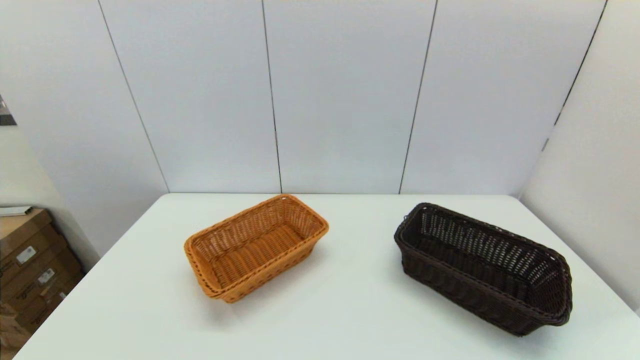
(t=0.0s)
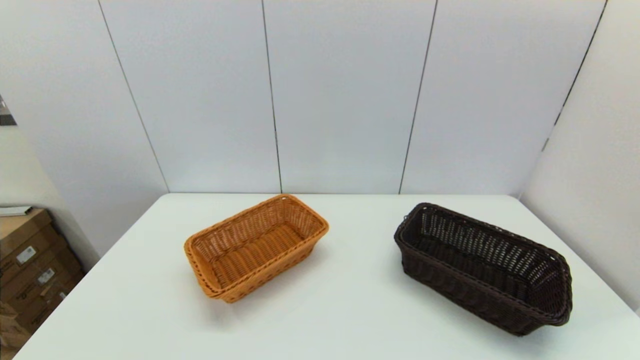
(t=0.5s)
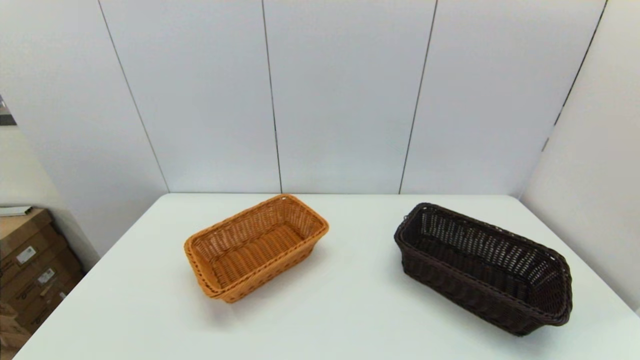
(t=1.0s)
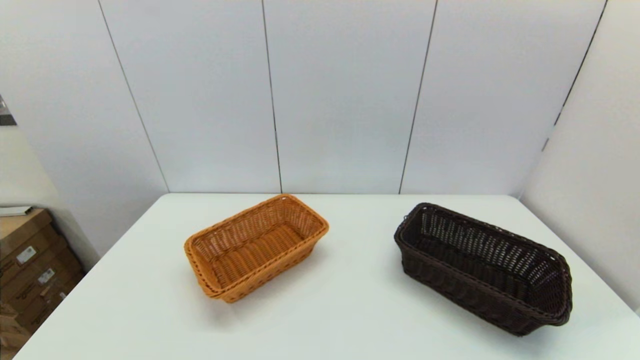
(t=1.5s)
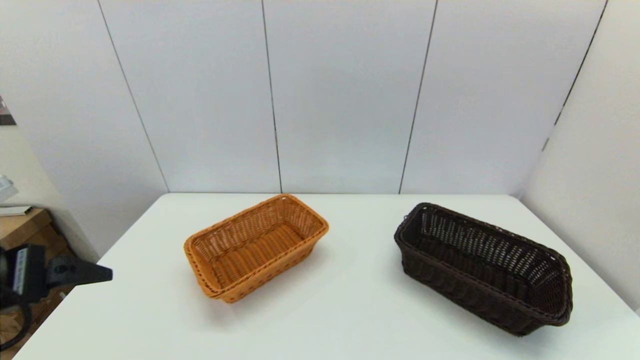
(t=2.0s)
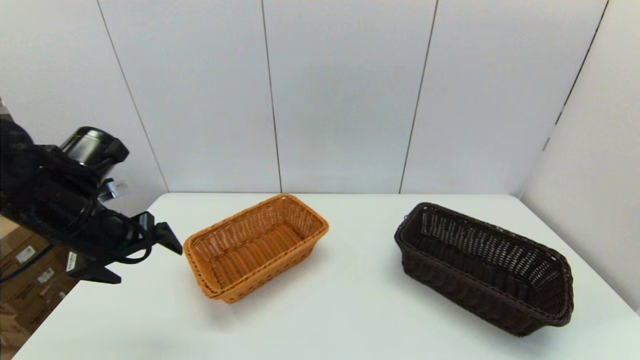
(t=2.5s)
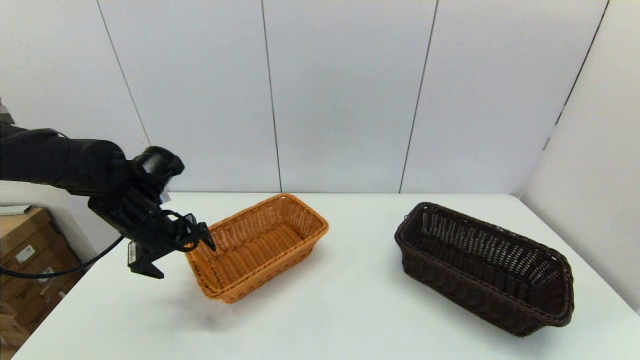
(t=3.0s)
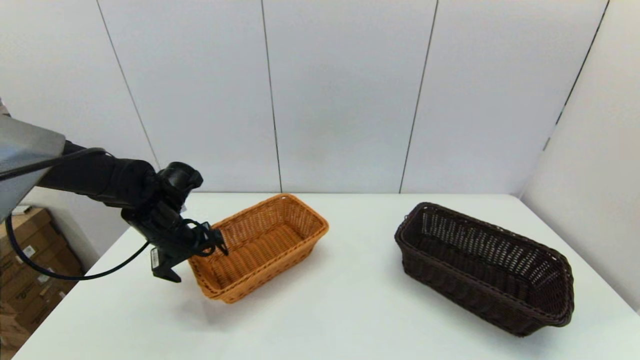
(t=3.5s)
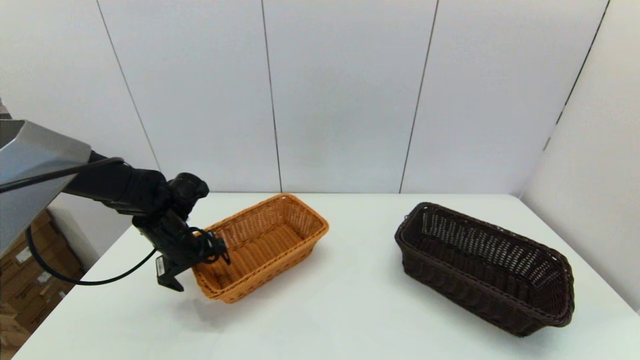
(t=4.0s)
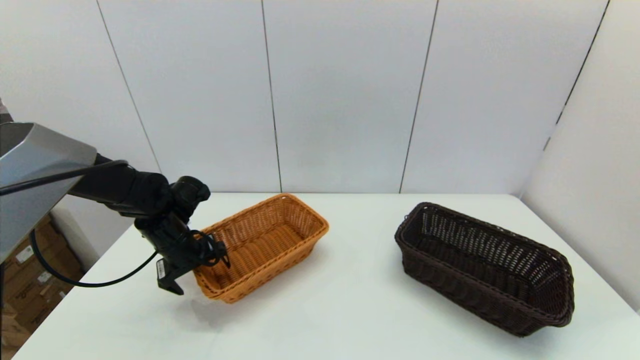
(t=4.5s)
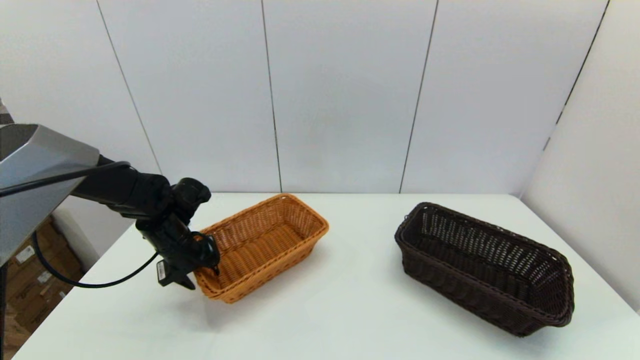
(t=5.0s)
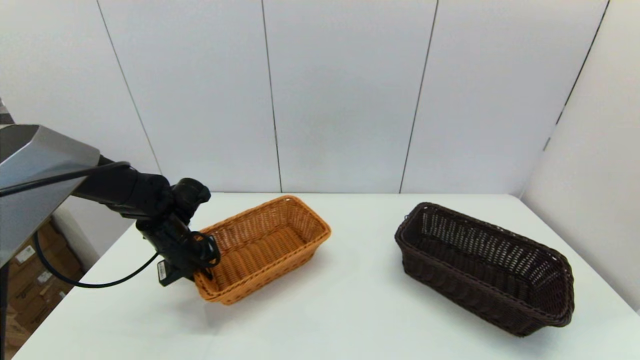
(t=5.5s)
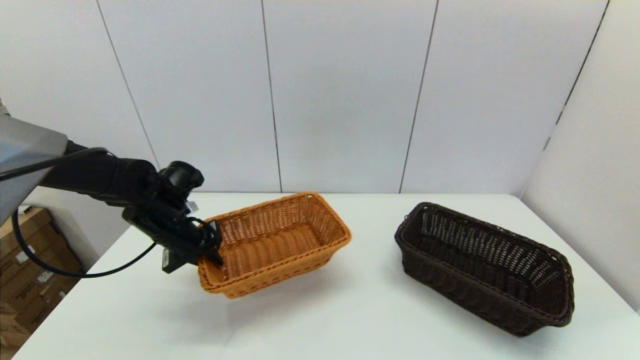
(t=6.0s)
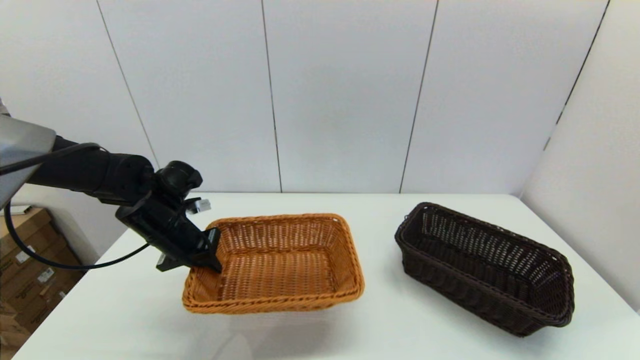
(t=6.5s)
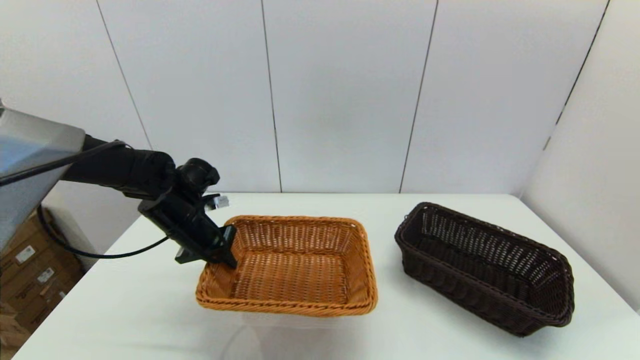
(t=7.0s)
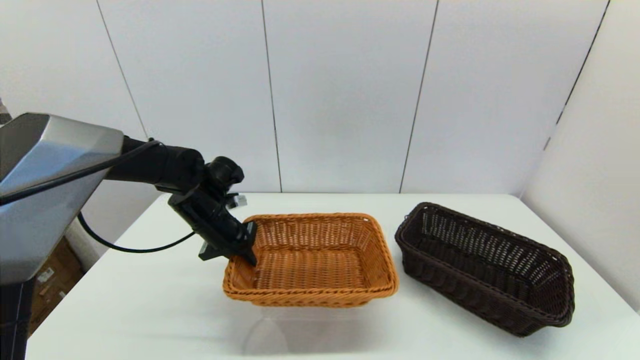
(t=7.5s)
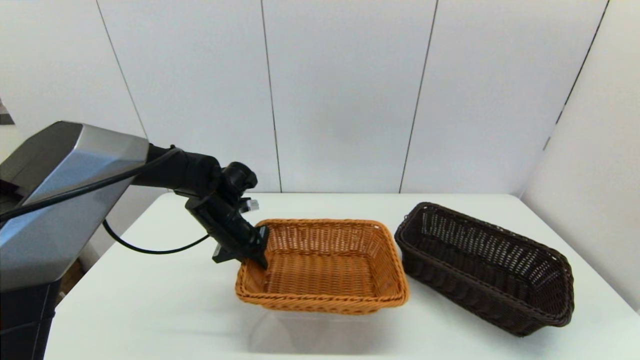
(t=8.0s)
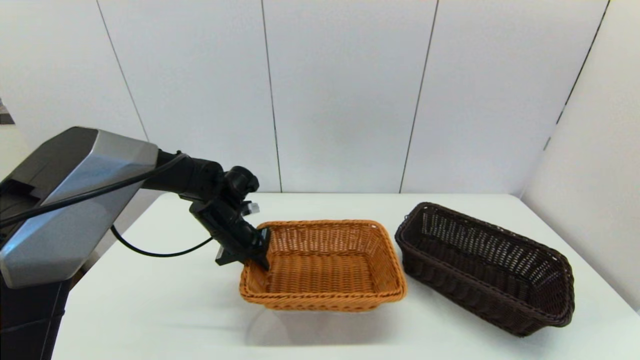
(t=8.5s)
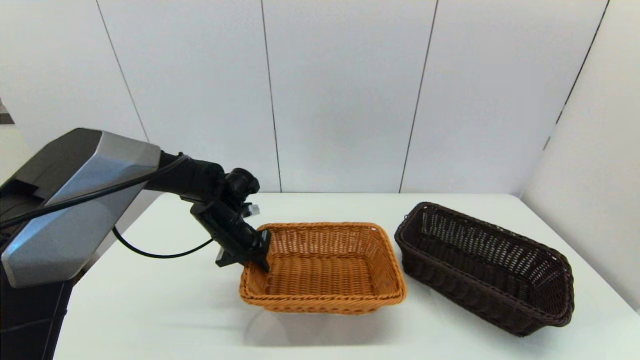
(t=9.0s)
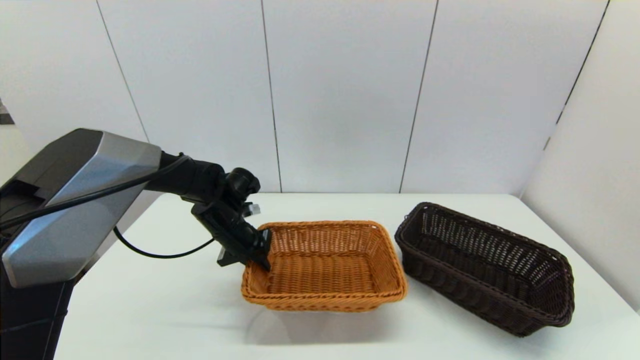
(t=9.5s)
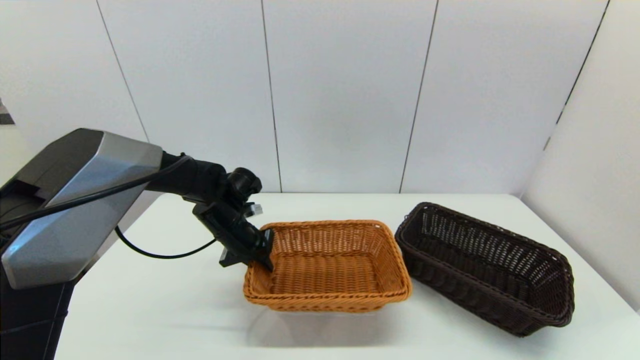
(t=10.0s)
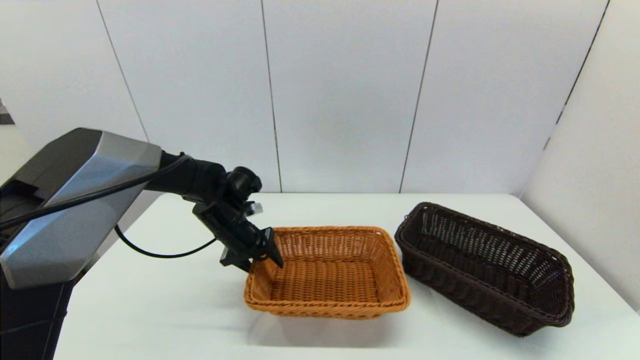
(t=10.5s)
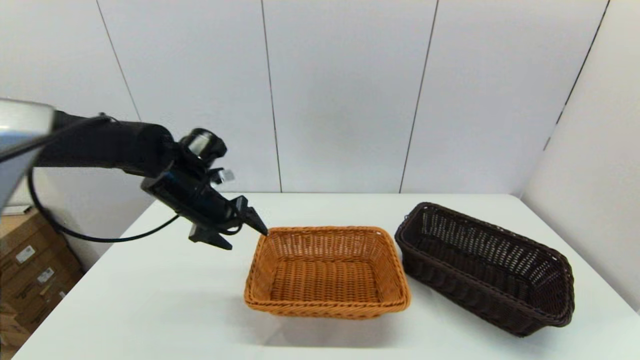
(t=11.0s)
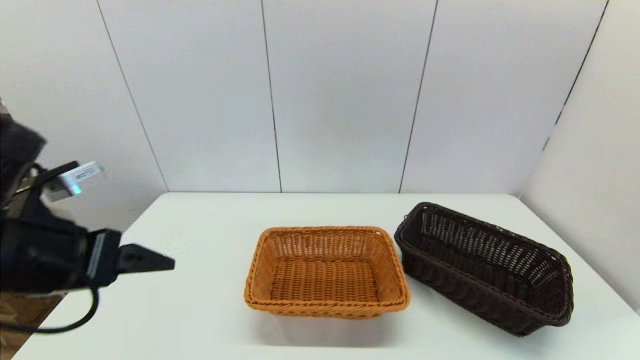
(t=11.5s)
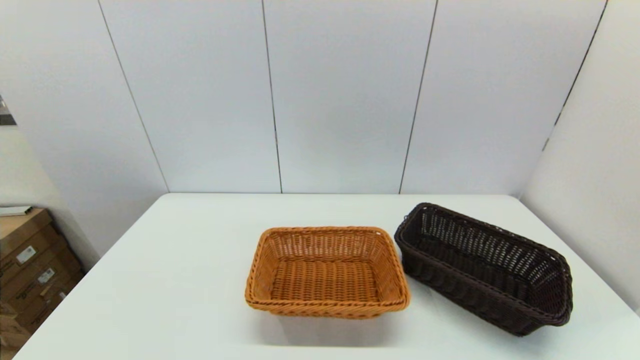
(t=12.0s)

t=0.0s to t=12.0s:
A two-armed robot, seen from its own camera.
Task of the whole recording: stack a basket on top of another basket.
Step, t=2.0s to t=5.0s: Grasp the light basket with the left gripper.
Step, t=5.5s to t=10.5s: Place the light basket on the middle of the table with the left gripper.
t=0.0s to t=2.0s: The left gripper moves forward and upward, approximately 25 cm.
t=2.0s to t=4.0s: The left gripper is displaced forward and downward by some 25 cm.
t=4.0s to t=6.0s: The left gripper closes up.
t=6.0s to t=8.0s: The left gripper heads to the right, covering approximately 10 cm.
t=8.0s to t=10.0s: The grippers stay close to where they were, moving slightly.
t=10.0s to t=12.0s: The left gripper goes approximately 35 cm backward, and opens.

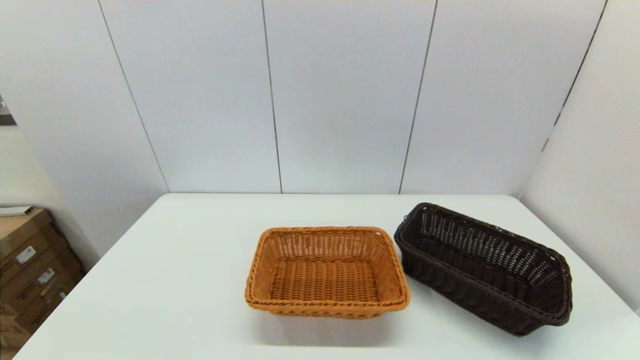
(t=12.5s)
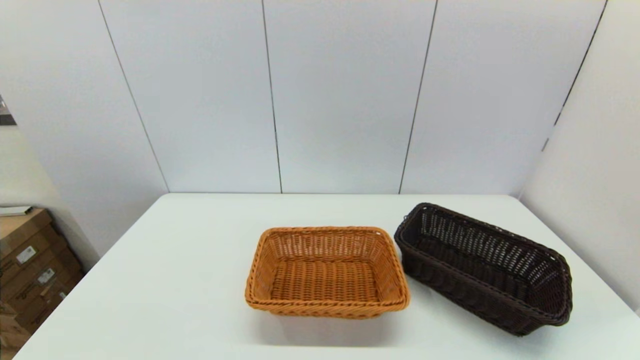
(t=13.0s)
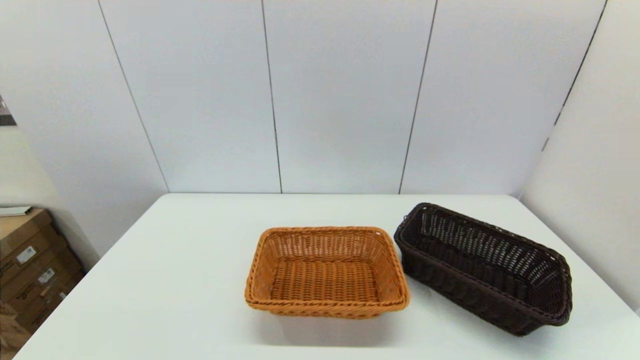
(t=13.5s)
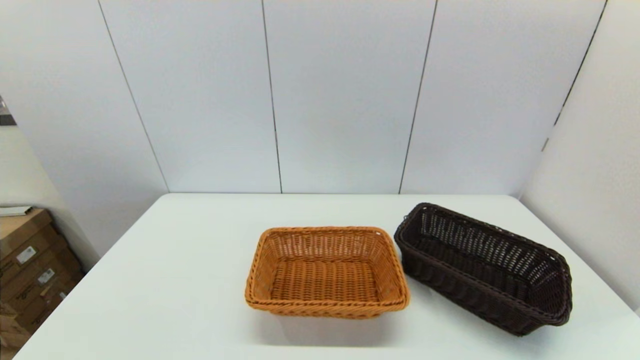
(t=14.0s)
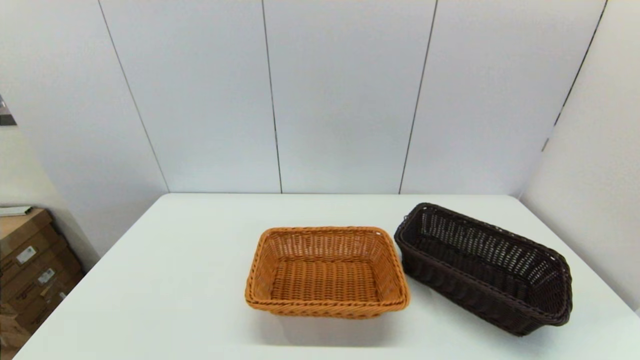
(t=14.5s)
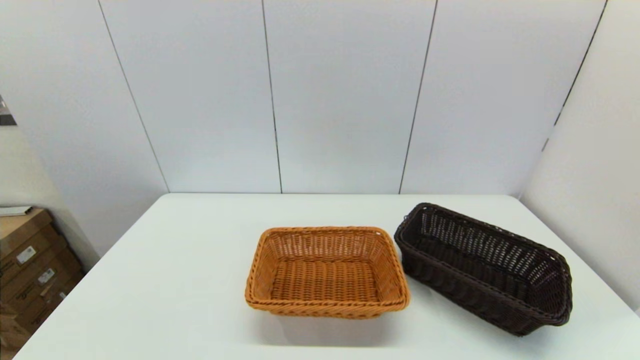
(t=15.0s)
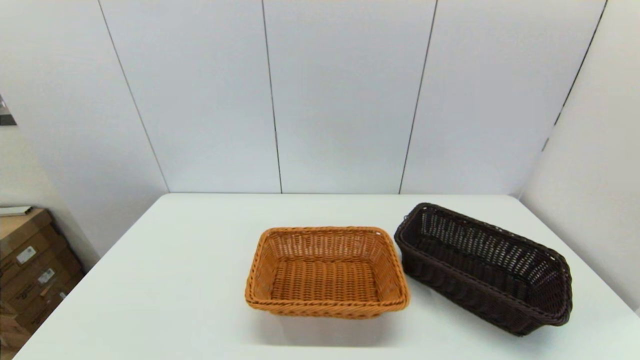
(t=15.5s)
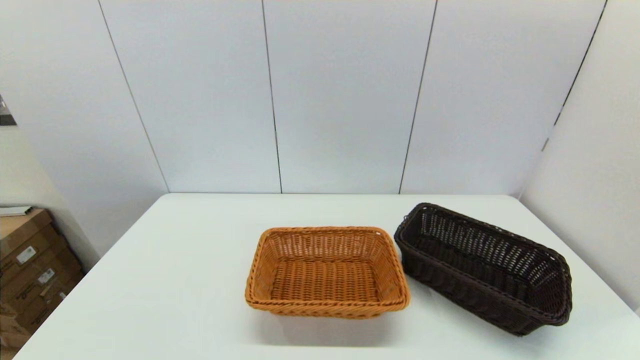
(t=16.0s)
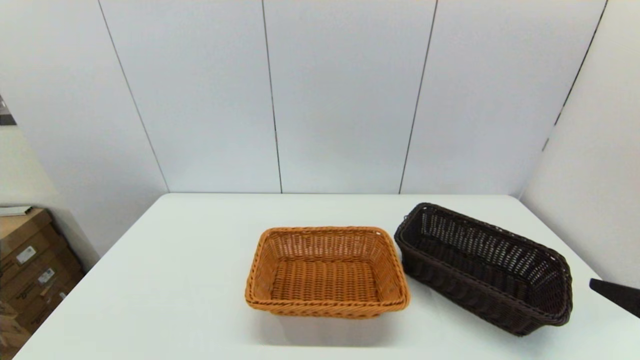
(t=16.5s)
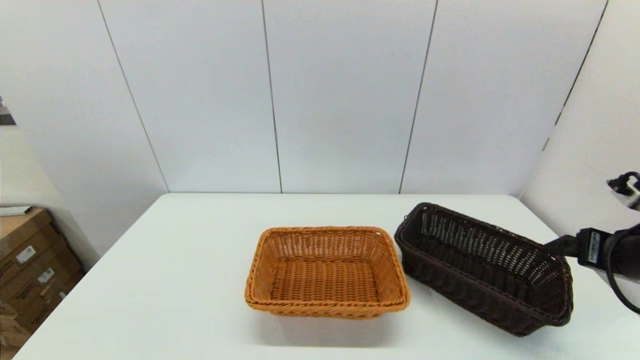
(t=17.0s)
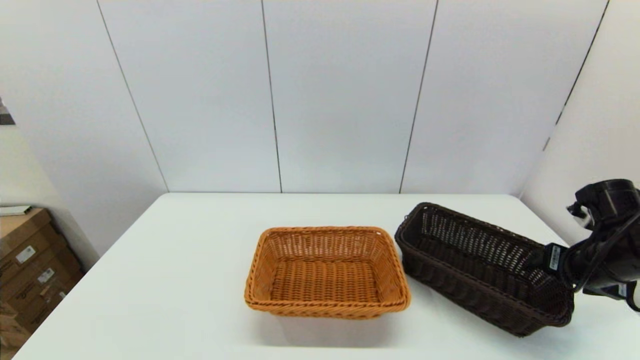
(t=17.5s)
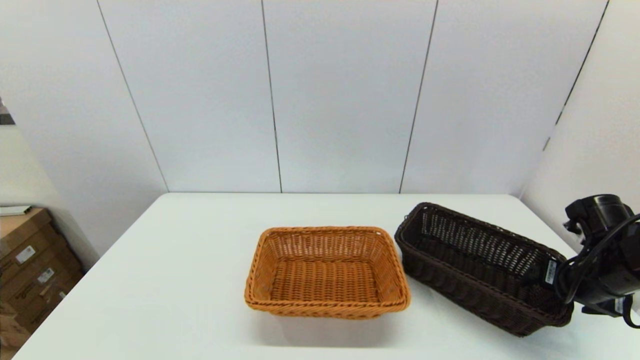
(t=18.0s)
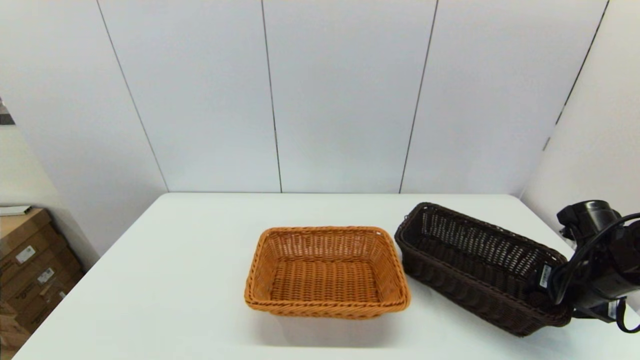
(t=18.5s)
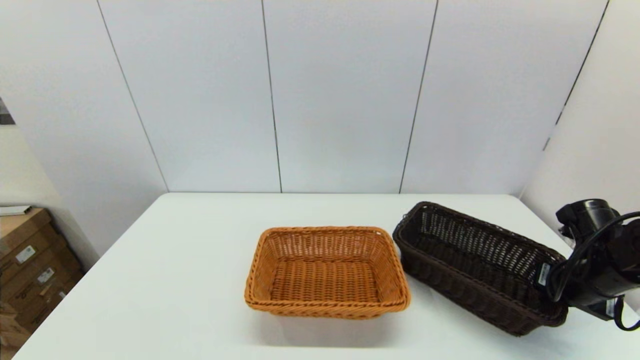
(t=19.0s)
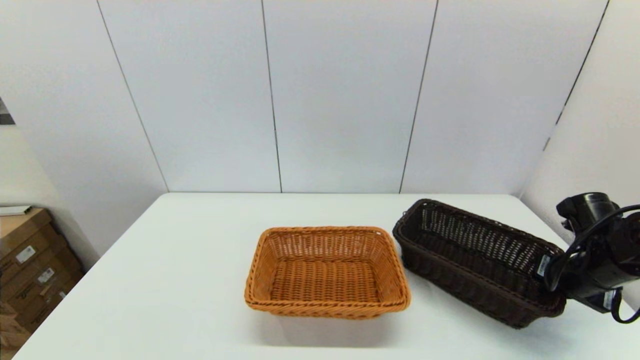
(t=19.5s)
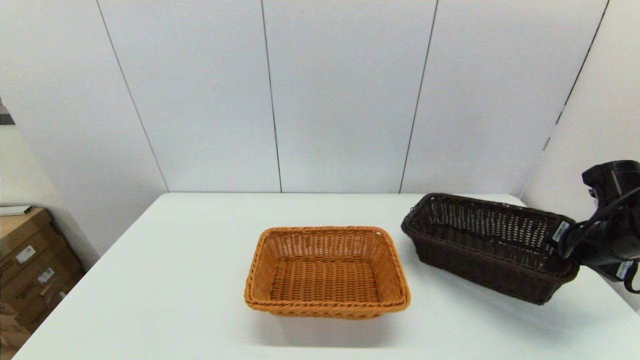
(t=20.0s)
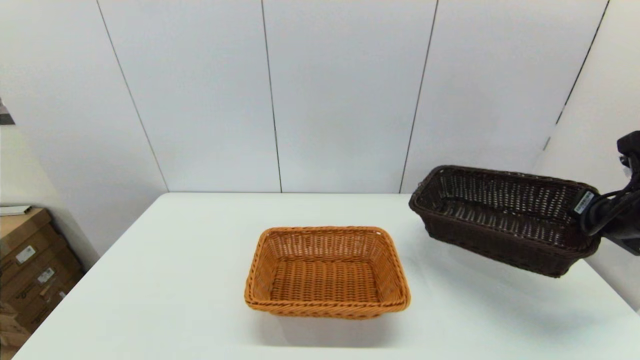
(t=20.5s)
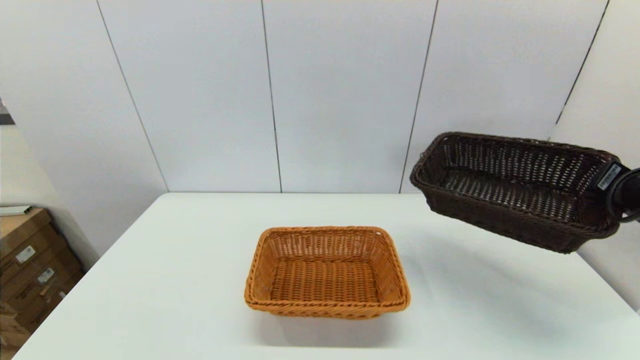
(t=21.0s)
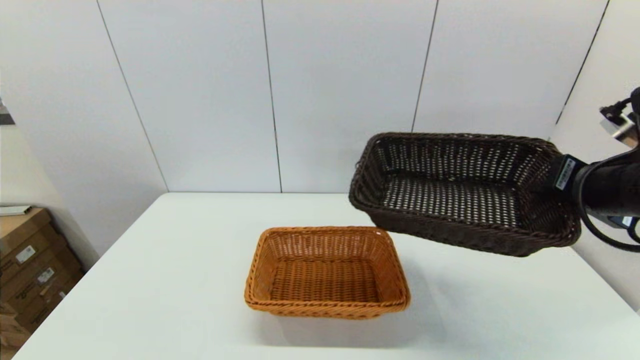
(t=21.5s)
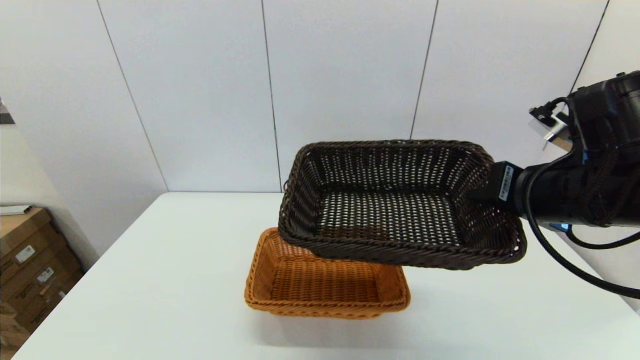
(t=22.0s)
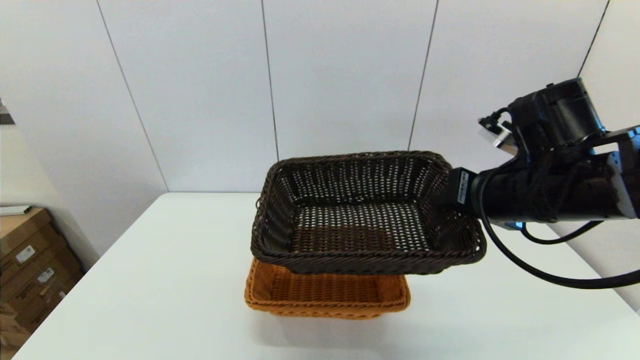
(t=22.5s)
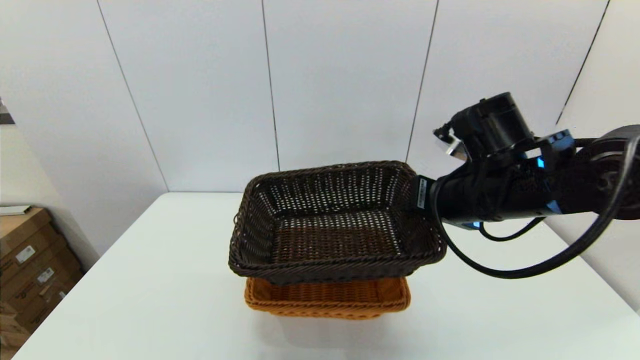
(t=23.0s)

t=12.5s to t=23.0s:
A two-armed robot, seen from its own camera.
Task of the whole recording: stack a basket on top of another basket.
Step, t=12.5s to t=19.0s: Grasp the dark basket with the right gripper.
t=16.5s to t=19.0s: The right gripper moves forward and downward, about 20 cm, and closes up.
t=19.0s to t=21.0s: The right gripper travels upward by approximately 15 cm.
t=21.0s to t=23.0s: The right gripper is displaced to the left by roughly 20 cm.
